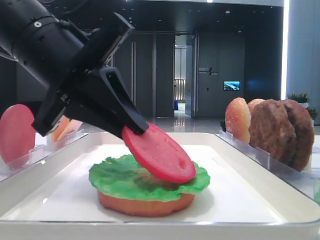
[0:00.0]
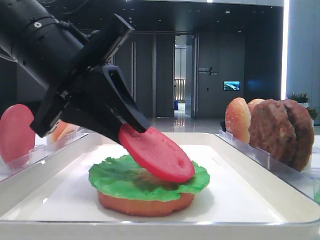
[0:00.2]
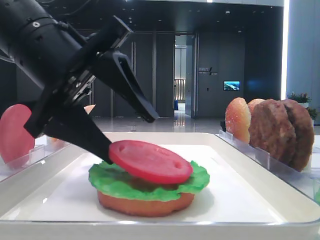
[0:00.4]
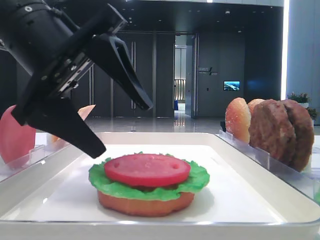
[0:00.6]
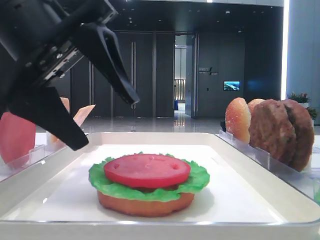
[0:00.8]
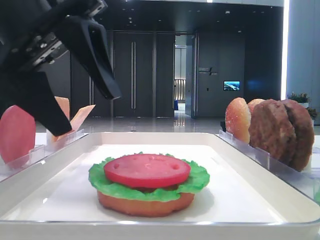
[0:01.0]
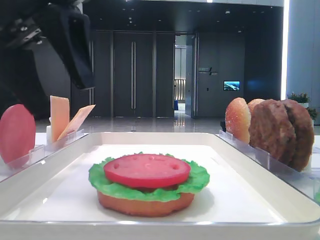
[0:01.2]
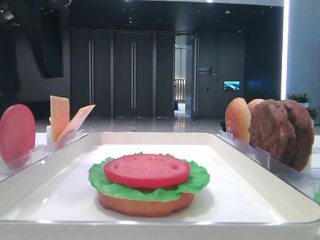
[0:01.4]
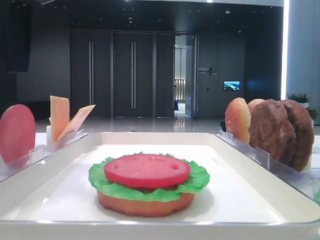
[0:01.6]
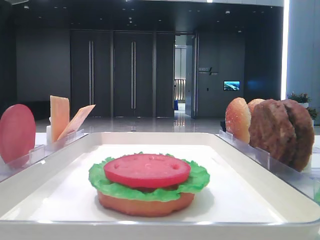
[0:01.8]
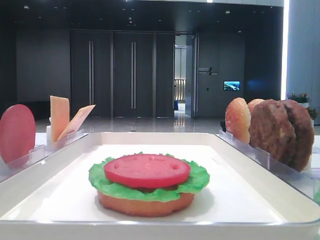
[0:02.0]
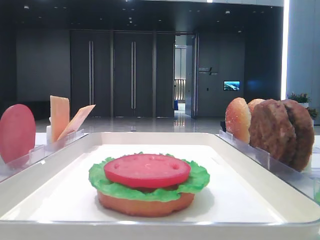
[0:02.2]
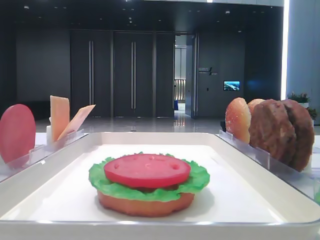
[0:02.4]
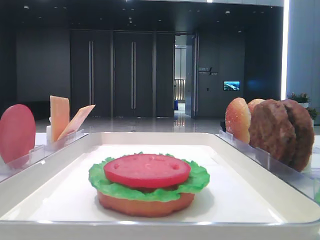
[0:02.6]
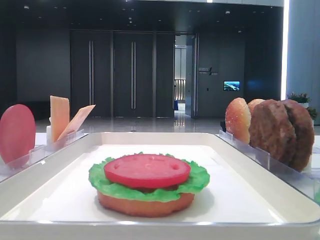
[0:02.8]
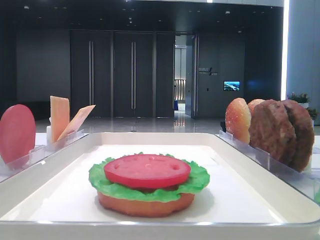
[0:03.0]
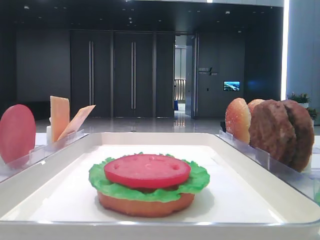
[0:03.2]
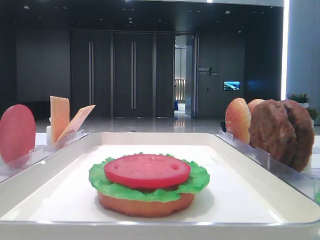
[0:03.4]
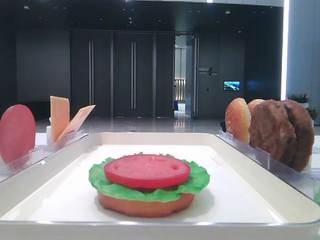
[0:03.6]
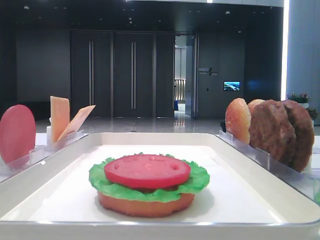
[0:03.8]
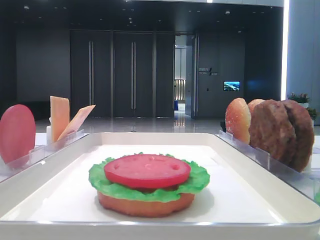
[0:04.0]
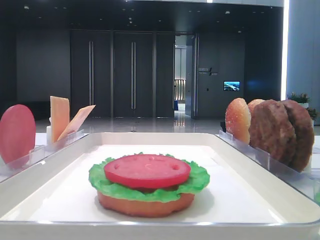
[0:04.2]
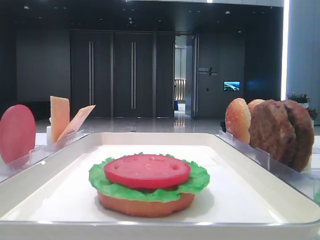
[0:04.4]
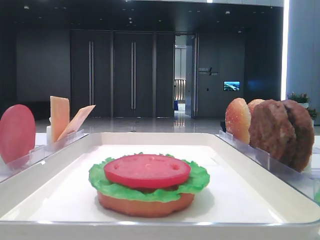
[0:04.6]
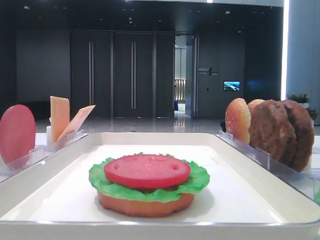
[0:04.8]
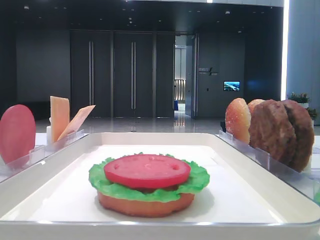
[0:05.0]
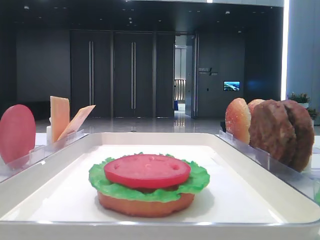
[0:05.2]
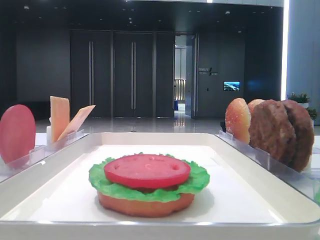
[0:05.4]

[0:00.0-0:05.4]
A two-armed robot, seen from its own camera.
0:00.0 to 0:01.4: The left gripper shifts some 10 cm upward, and opens its fingers.
0:01.4 to 0:02.8: The left gripper is displaced to the left, backward and upward by some 20 cm.
0:04.0 to 0:05.4: Neither gripper changes place.

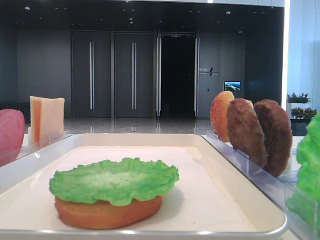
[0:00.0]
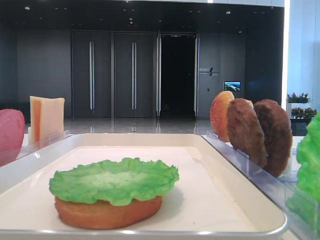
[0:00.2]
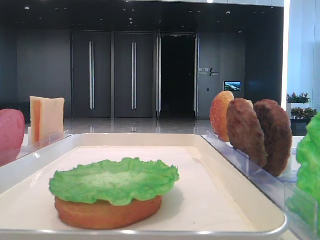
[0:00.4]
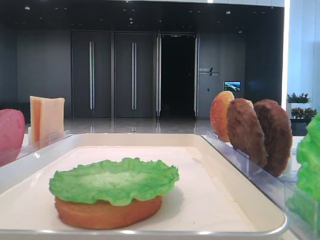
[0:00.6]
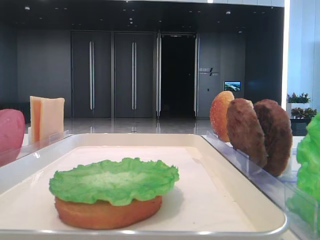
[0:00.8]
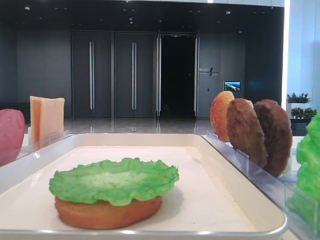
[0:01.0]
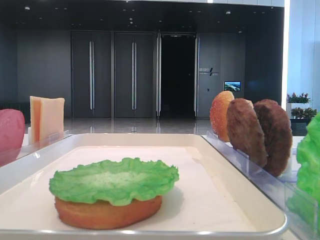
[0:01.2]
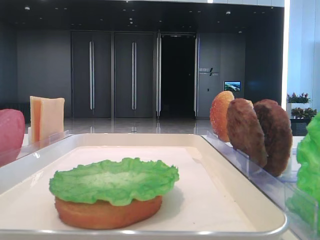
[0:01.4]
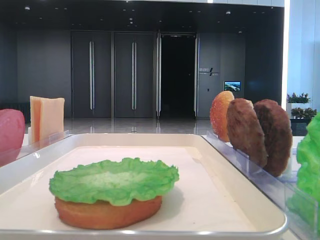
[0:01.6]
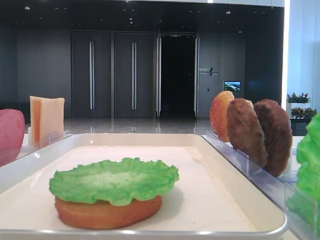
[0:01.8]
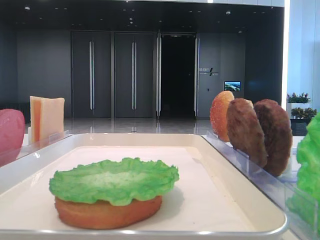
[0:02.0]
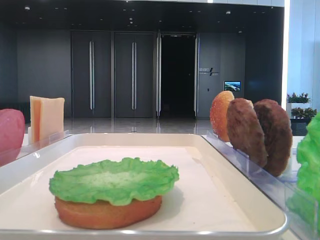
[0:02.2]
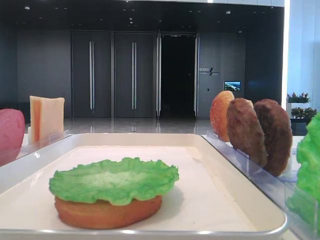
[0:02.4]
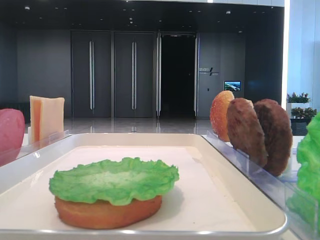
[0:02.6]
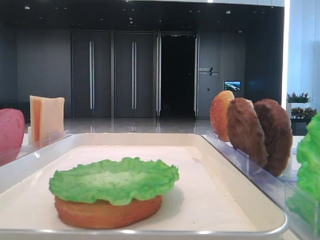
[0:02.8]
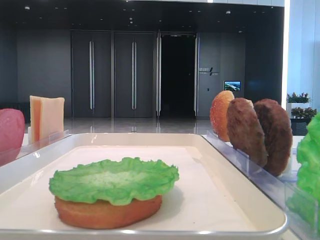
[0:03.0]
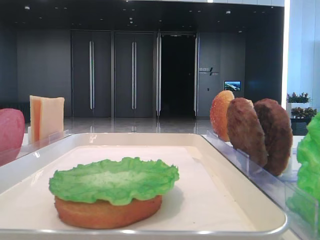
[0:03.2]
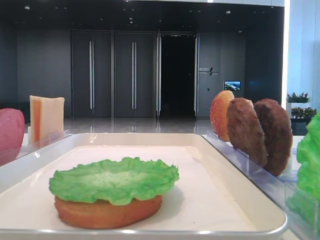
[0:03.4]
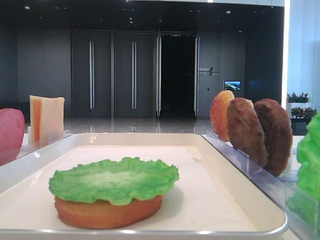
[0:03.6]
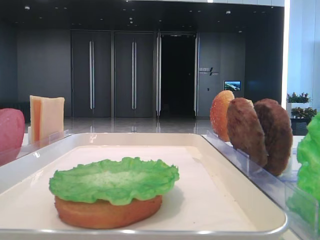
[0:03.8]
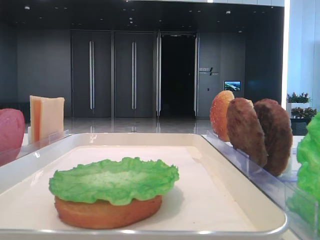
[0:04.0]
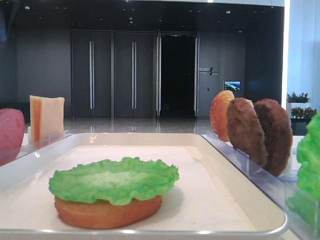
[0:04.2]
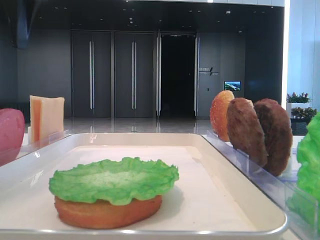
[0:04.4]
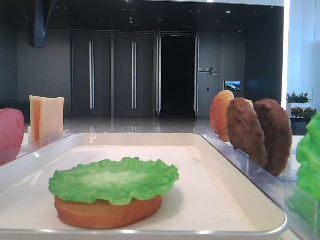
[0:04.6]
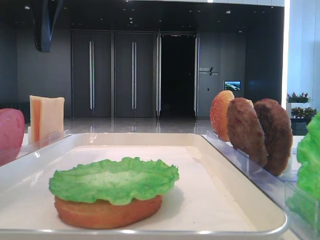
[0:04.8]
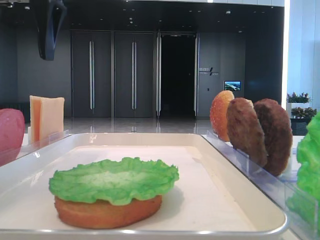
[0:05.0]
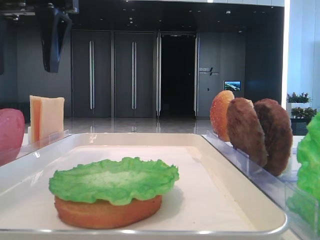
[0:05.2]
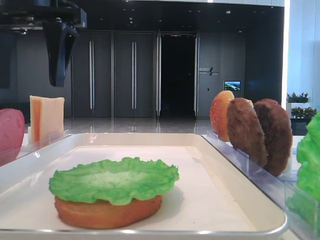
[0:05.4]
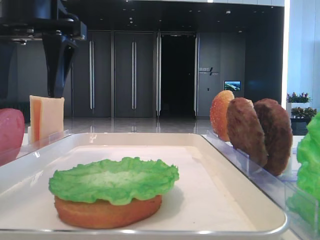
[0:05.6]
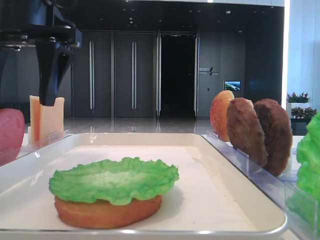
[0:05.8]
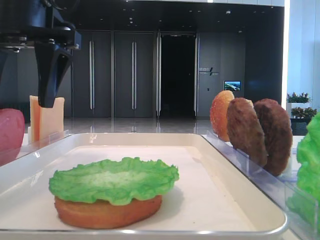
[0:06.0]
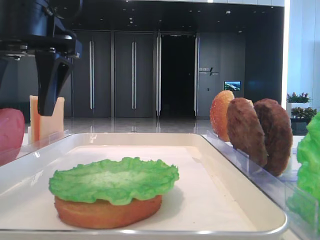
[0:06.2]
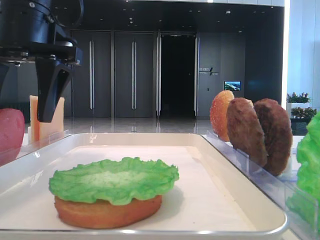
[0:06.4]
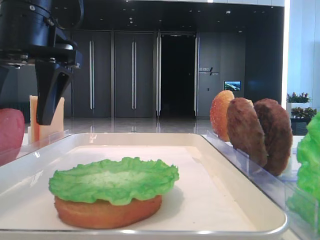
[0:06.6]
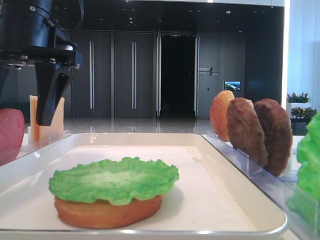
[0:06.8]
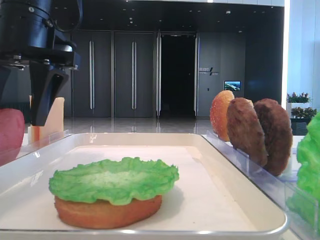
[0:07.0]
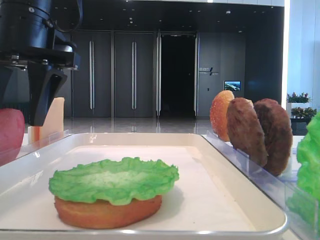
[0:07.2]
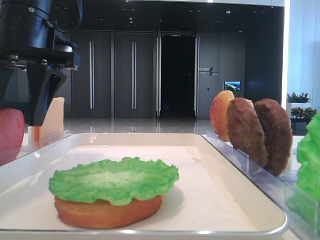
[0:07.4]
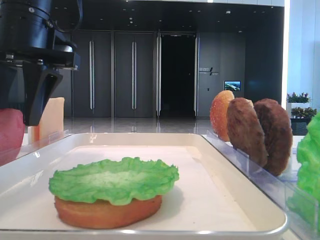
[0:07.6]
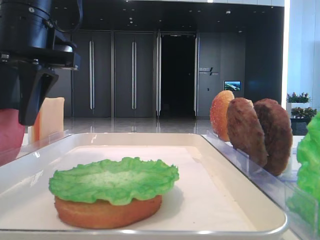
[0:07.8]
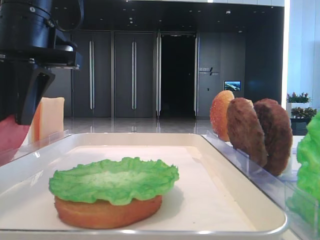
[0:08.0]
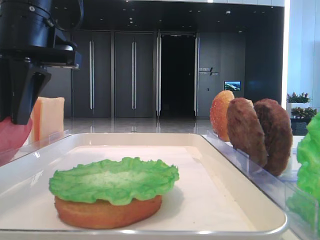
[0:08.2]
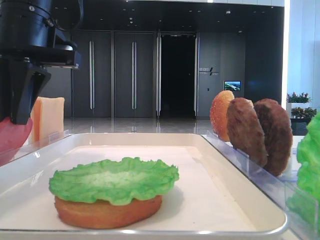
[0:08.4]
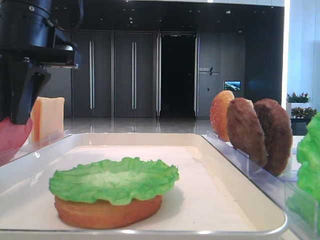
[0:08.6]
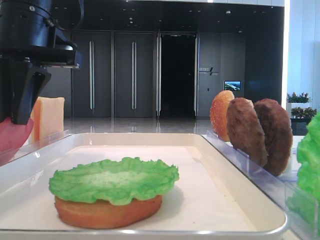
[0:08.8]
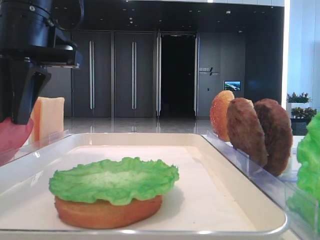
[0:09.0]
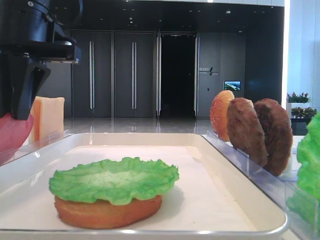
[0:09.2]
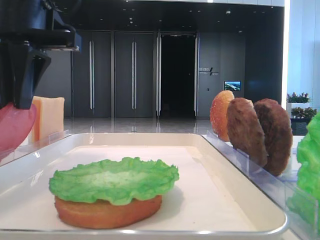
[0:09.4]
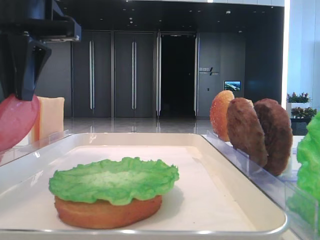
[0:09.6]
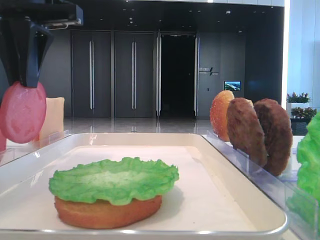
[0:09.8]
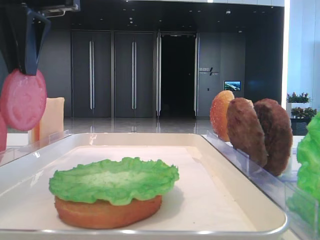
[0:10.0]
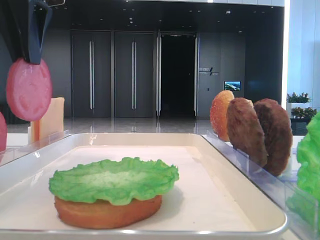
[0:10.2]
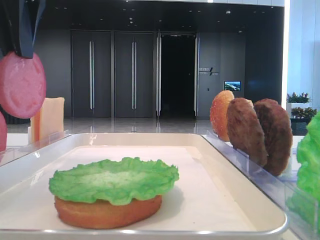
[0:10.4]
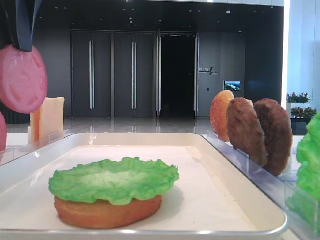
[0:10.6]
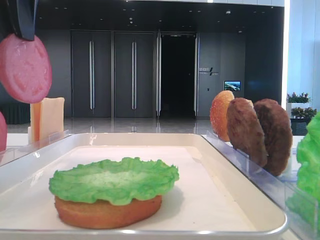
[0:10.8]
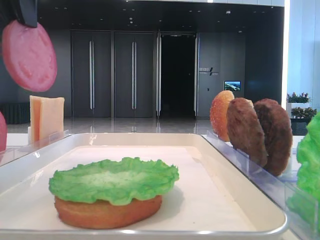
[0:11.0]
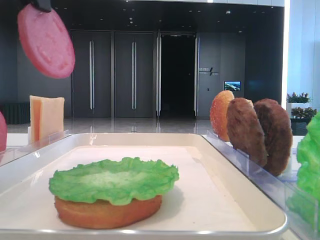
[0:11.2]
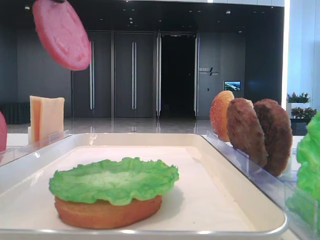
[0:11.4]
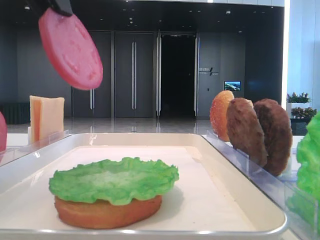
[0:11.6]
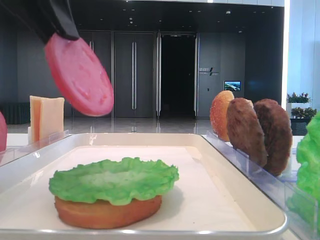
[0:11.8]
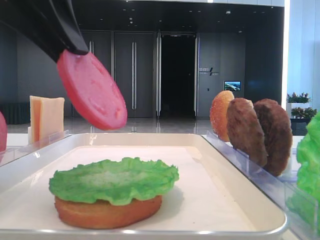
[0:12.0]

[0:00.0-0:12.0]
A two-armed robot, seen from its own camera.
Step, 0:00.0 to 0:08.8: Pick up the tomato slice with the left hand.
0:03.0 to 0:04.4: The left gripper goes roughly 15 cm to the right and forward.
0:04.4 to 0:06.0: The left gripper moves downward, about 10 cm.
0:06.0 to 0:07.6: The left gripper closes.
0:07.6 to 0:09.0: The left gripper closes up.
0:09.0 to 0:10.4: The left gripper moves upward, roughly 10 cm.
0:10.4 to 0:12.0: The left gripper is displaced backward by roughly 5 cm.

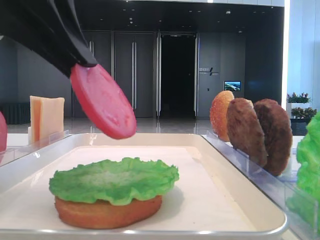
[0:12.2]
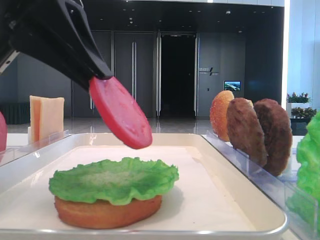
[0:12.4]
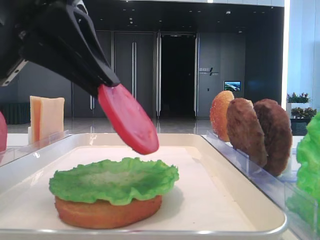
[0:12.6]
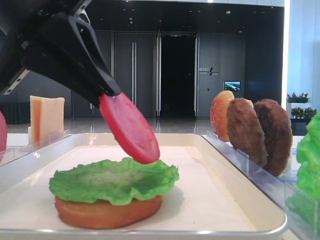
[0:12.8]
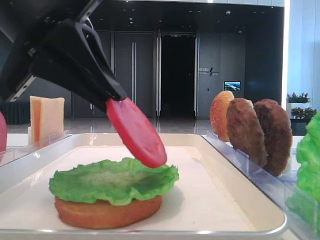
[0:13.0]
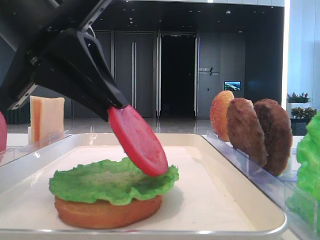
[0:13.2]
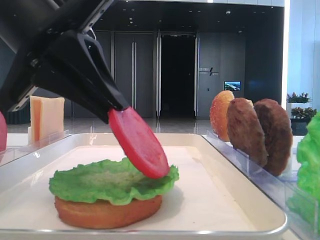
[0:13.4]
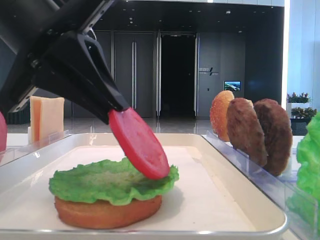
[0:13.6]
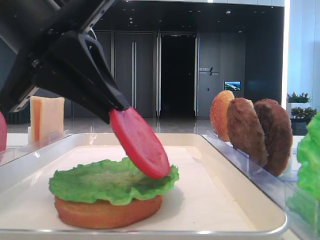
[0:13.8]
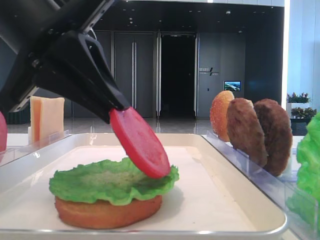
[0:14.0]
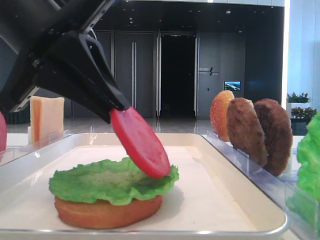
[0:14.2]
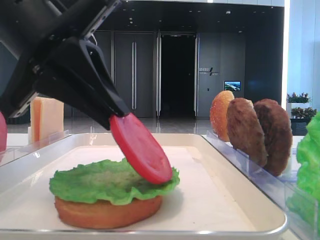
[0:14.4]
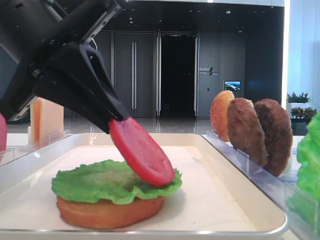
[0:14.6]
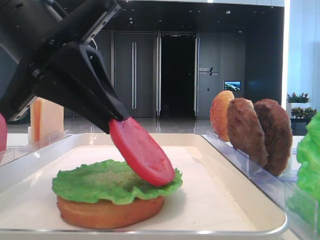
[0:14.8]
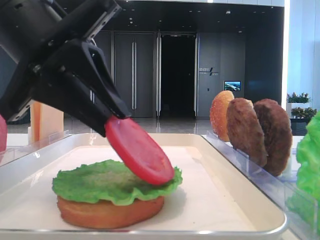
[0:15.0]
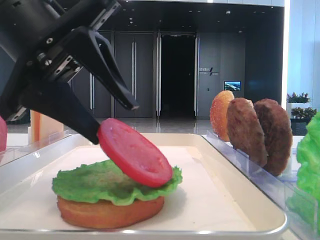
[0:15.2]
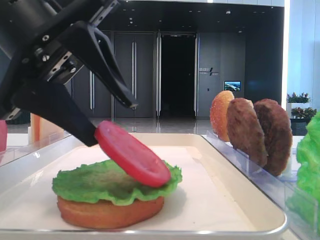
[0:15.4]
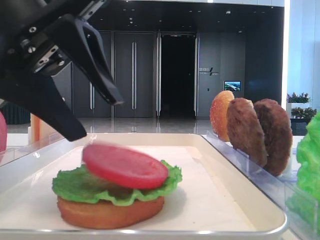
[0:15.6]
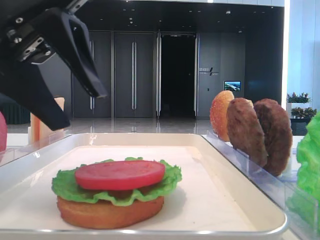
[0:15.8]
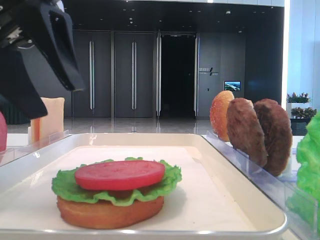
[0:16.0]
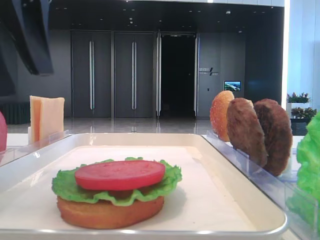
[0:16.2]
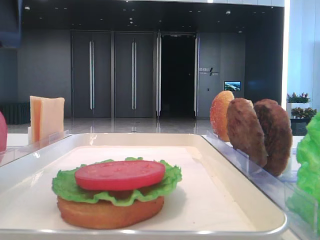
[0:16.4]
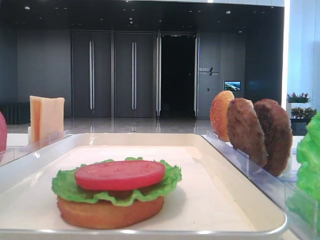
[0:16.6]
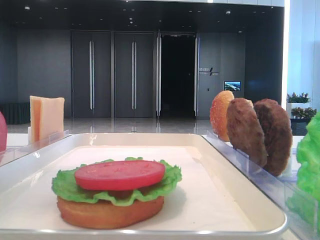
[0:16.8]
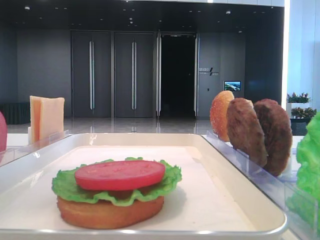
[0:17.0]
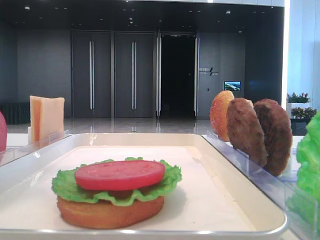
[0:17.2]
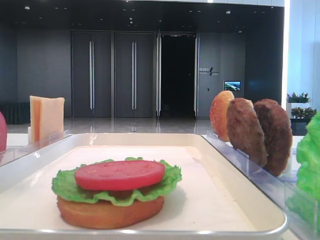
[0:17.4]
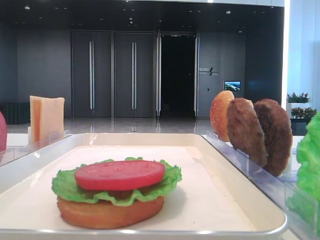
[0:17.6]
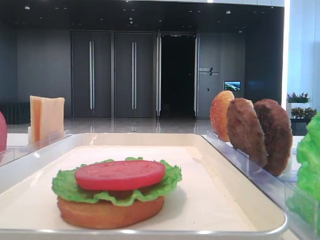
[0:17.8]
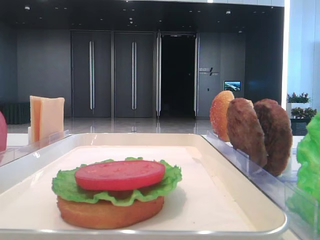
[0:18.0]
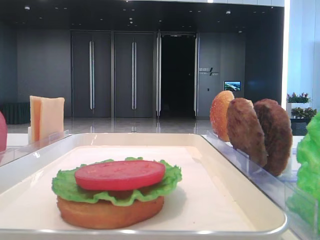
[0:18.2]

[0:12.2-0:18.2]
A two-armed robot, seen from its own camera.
Step, 0:12.2 to 0:15.4: Place the tomato slice on the lettuce leaf with the left hand.
0:12.2 to 0:13.8: The left gripper changes place by some 5 cm.
0:13.8 to 0:15.2: The left gripper opens.
0:15.2 to 0:16.6: The left gripper moves upward and to the left, approximately 15 cm.
0:16.6 to 0:18.2: The left gripper heads to the left, covering some 15 cm.
